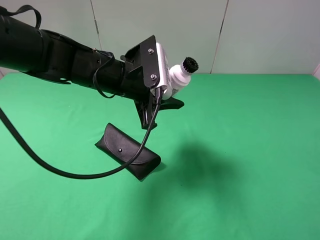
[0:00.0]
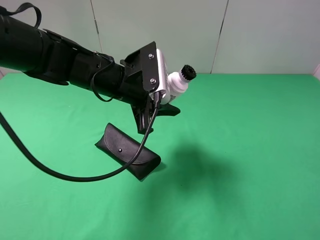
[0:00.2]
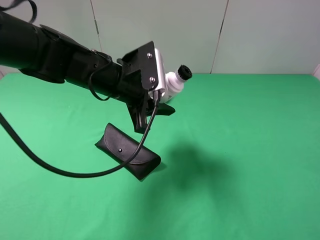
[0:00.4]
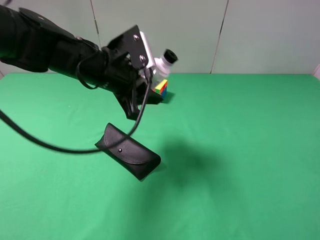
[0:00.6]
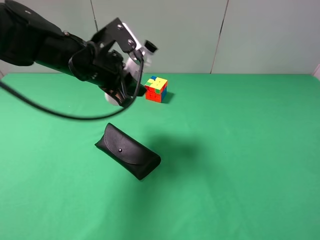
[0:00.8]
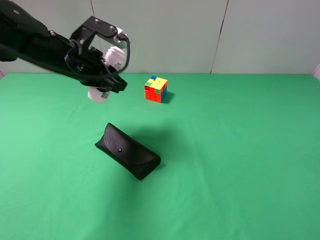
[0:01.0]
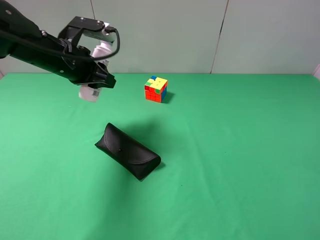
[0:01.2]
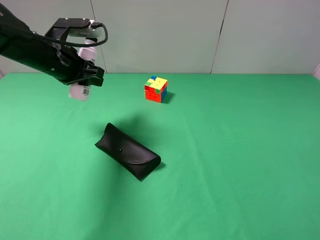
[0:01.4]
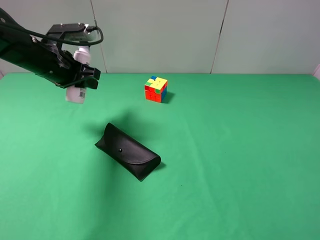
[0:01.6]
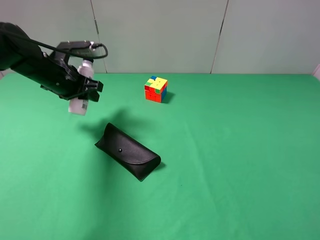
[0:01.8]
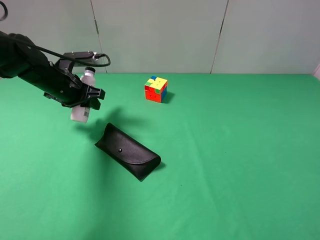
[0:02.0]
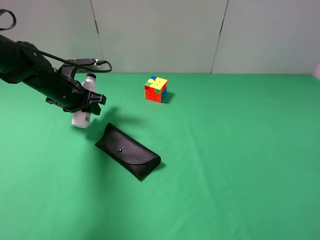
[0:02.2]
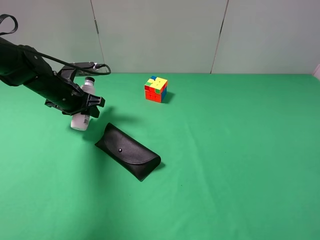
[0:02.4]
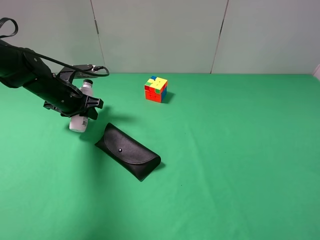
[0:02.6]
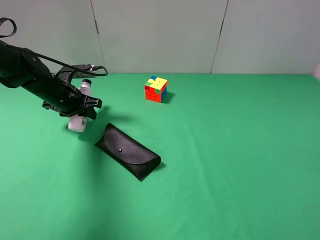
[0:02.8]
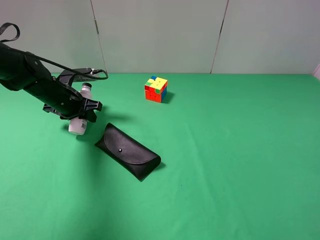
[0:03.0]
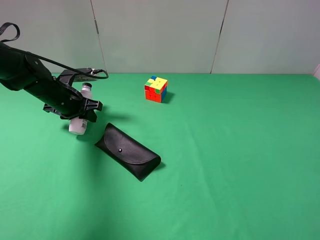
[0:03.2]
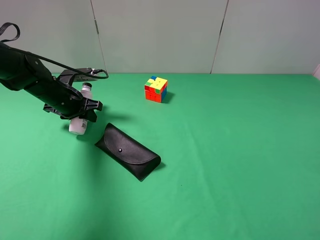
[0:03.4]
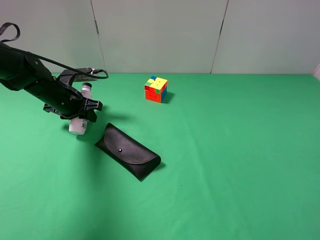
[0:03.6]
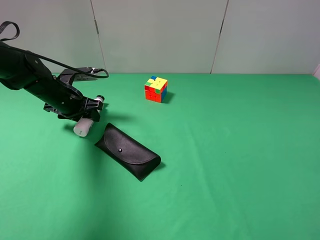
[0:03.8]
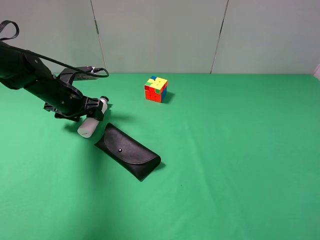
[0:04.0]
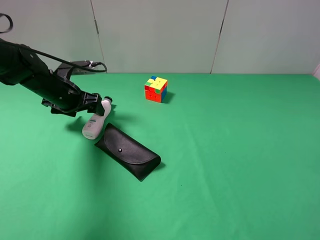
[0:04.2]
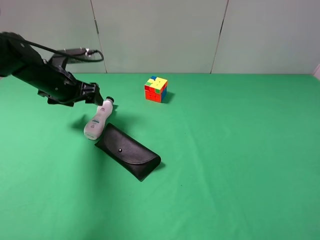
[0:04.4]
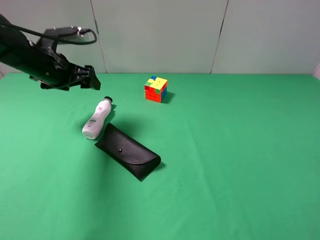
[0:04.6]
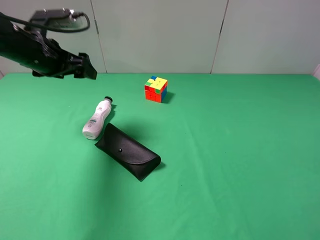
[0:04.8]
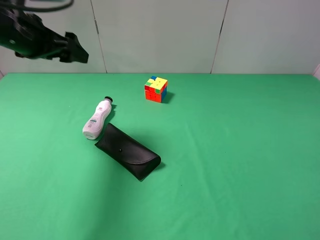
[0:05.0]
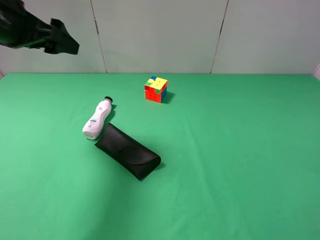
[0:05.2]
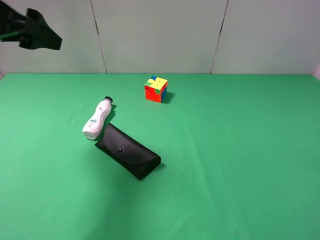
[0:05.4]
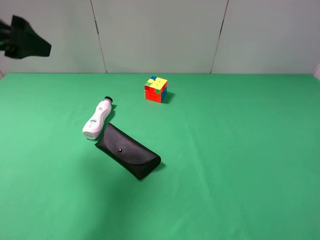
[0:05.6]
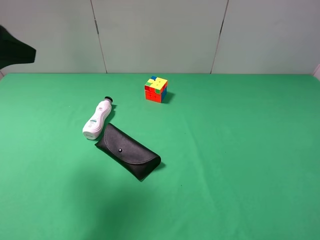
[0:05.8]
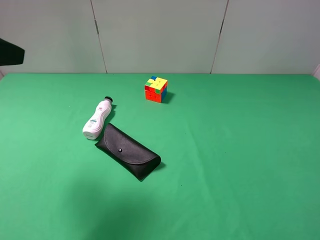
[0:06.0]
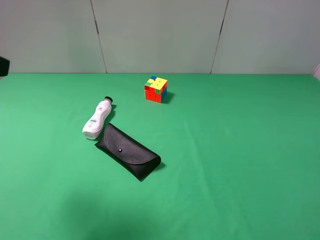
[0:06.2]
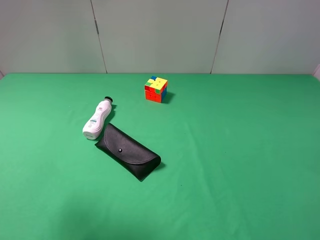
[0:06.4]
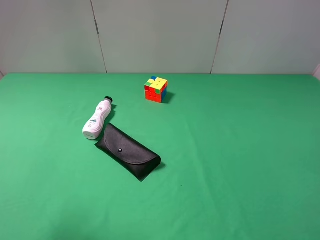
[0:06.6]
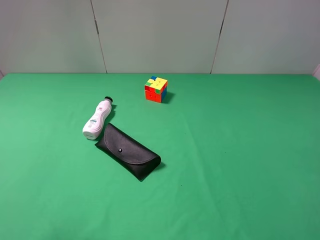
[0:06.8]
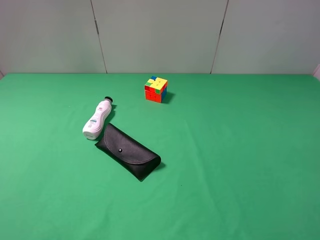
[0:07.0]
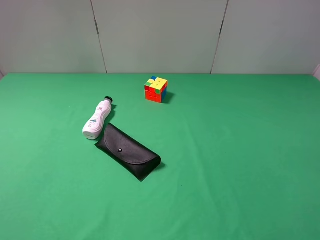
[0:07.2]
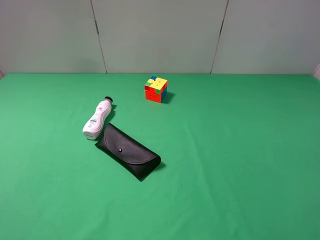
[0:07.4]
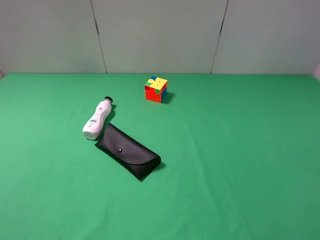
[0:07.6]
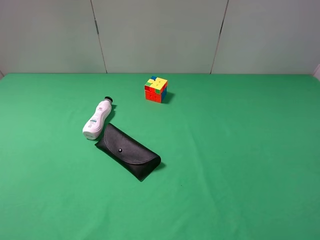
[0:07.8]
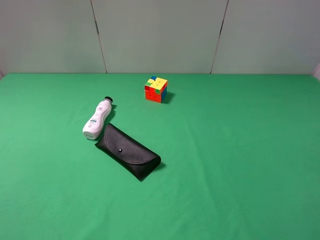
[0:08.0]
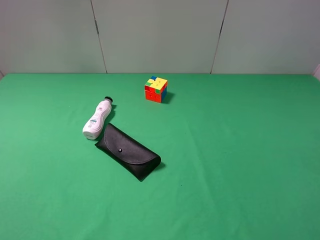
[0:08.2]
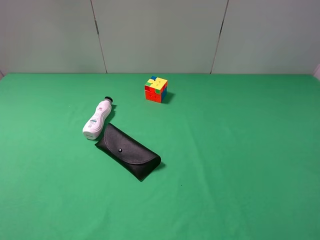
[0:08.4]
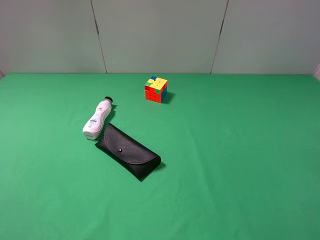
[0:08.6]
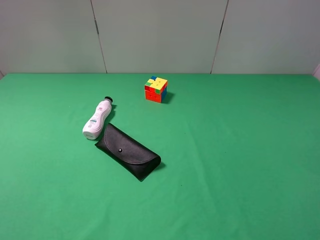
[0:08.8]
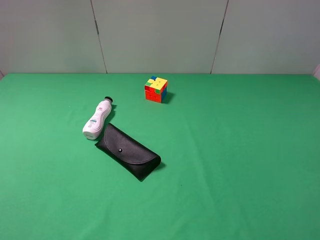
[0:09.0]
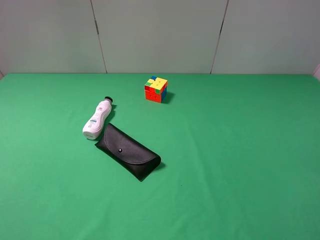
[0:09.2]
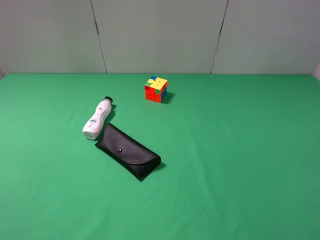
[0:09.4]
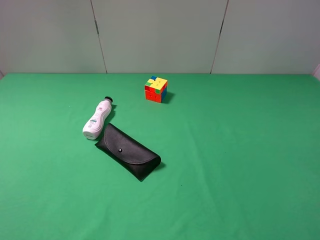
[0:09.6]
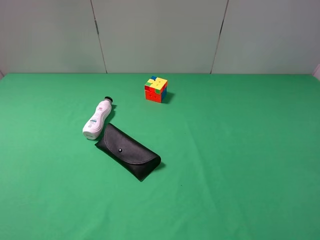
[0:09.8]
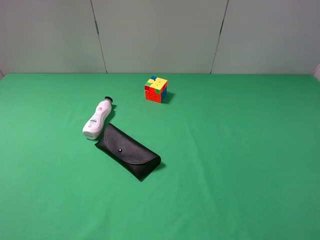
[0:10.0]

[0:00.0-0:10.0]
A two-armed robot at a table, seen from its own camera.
Task of the whole recording: use the right gripper to pick up the item and transfer it from the right gripper to the left gripper.
Step, 0:00.0 to 0:04.0: The left gripper places shampoo on the left side of the table.
0:00.0 to 0:01.4: The left gripper is displaced to the left and forward by about 15 cm.
0:01.4 to 0:02.8: The left gripper moves downward, roughly 10 cm.
0:02.8 to 0:04.2: The left gripper opens its fingers.
0:04.2 to 0:05.8: The left gripper moves upward and backward, approximately 25 cm.
0:05.8 to 0:07.2: The left gripper is displaced backward by some 20 cm.

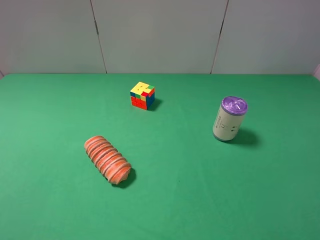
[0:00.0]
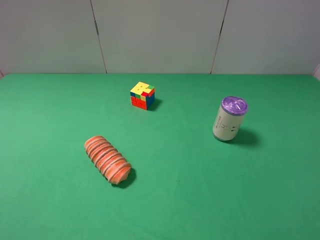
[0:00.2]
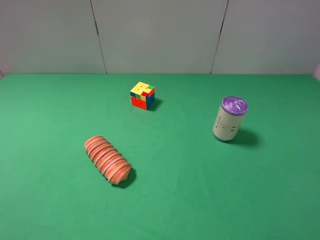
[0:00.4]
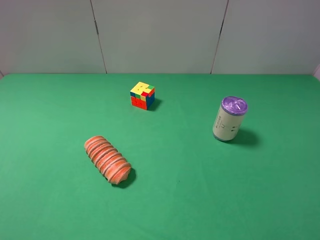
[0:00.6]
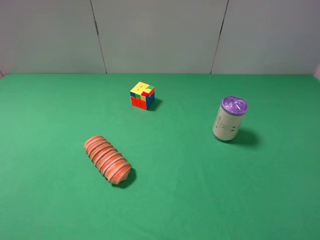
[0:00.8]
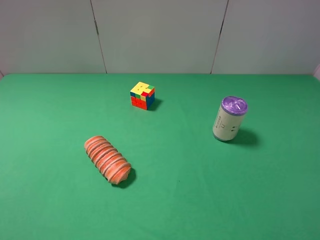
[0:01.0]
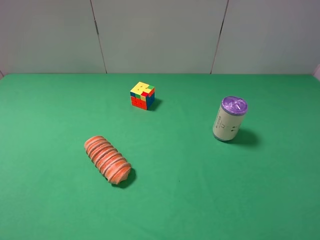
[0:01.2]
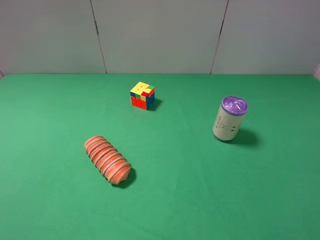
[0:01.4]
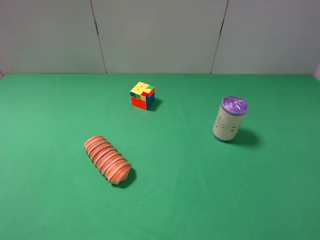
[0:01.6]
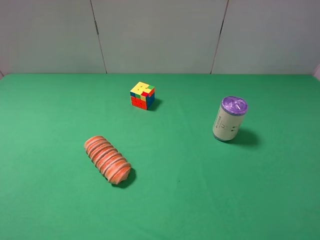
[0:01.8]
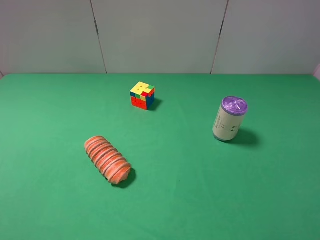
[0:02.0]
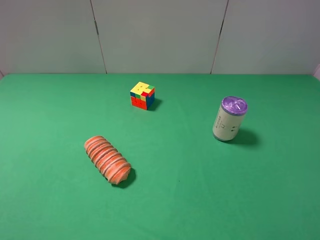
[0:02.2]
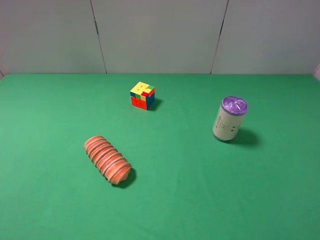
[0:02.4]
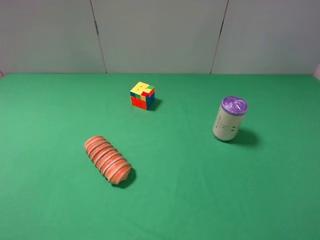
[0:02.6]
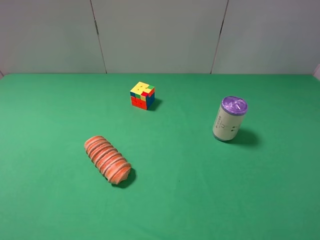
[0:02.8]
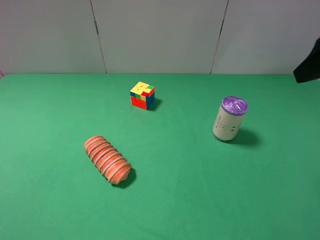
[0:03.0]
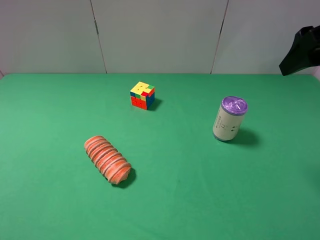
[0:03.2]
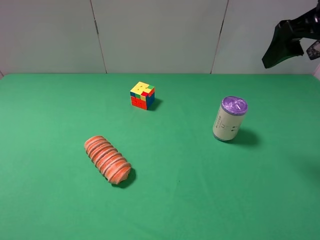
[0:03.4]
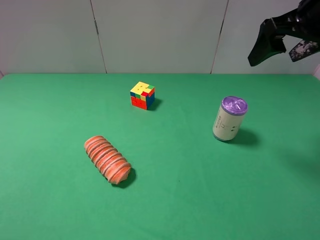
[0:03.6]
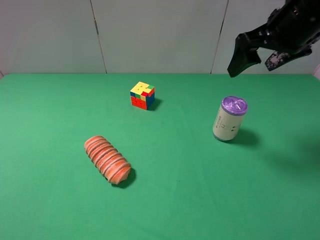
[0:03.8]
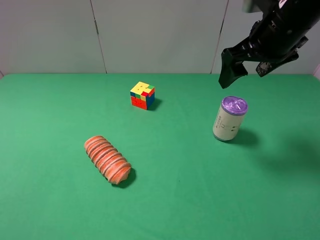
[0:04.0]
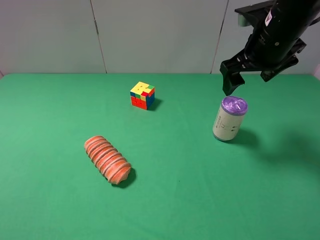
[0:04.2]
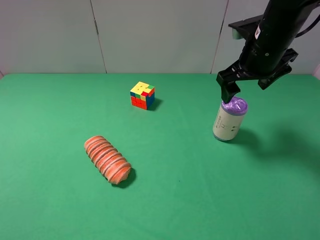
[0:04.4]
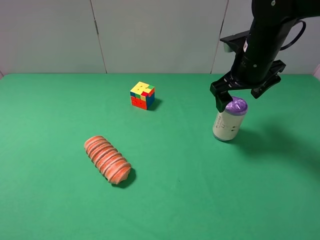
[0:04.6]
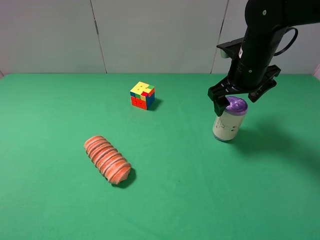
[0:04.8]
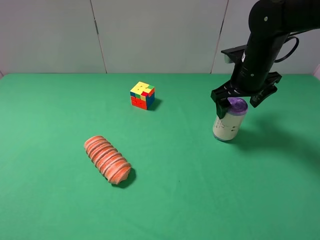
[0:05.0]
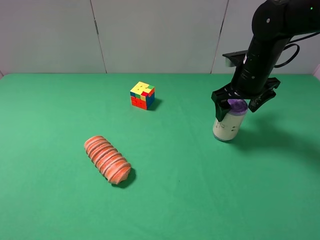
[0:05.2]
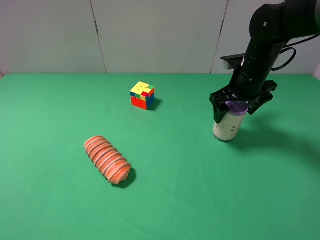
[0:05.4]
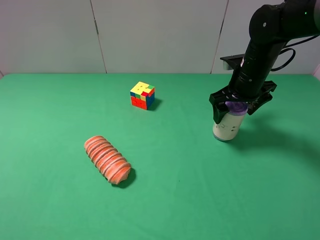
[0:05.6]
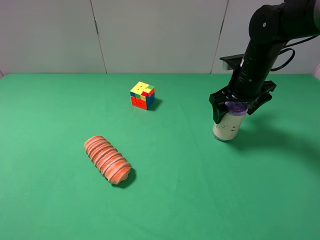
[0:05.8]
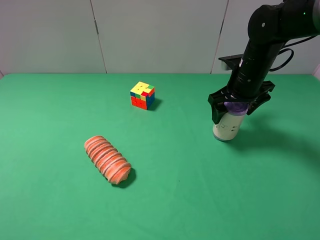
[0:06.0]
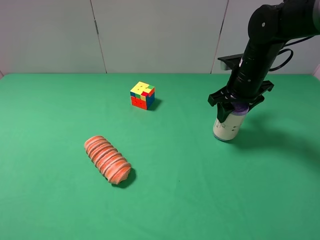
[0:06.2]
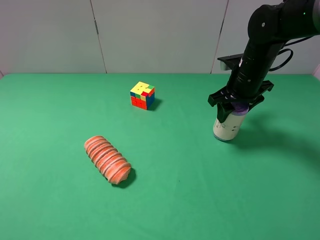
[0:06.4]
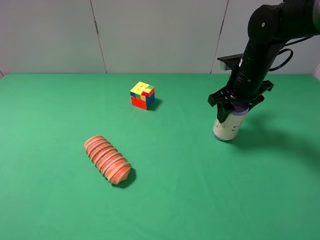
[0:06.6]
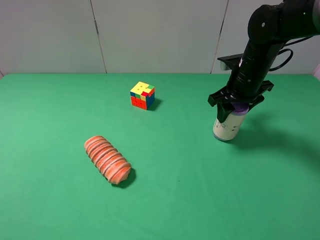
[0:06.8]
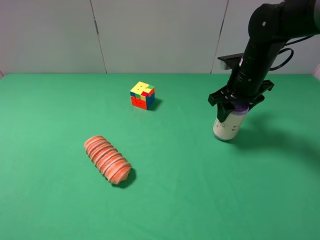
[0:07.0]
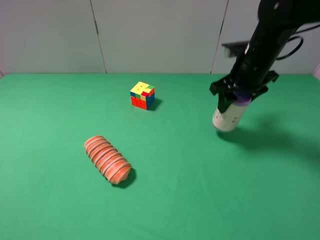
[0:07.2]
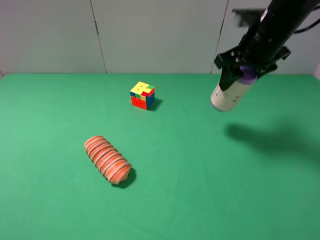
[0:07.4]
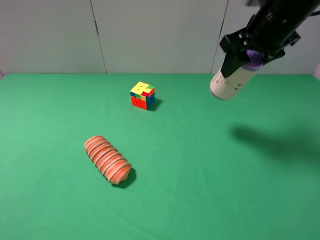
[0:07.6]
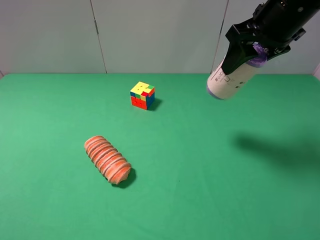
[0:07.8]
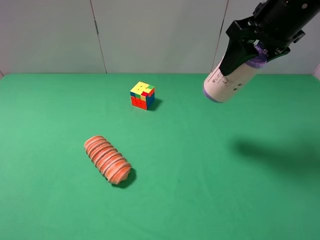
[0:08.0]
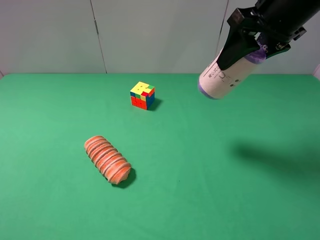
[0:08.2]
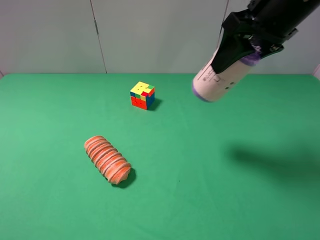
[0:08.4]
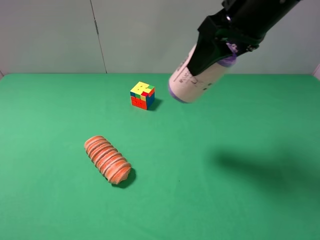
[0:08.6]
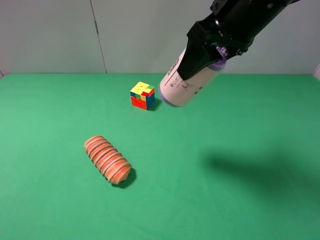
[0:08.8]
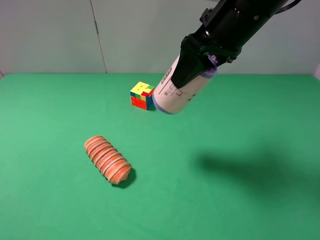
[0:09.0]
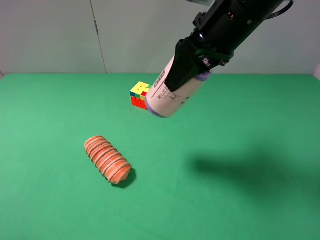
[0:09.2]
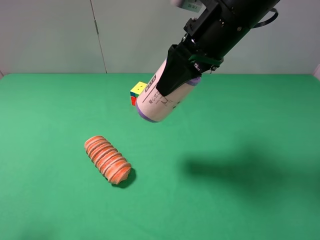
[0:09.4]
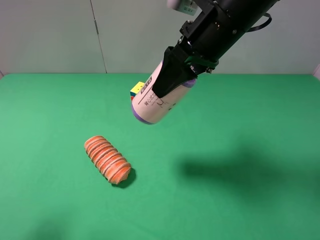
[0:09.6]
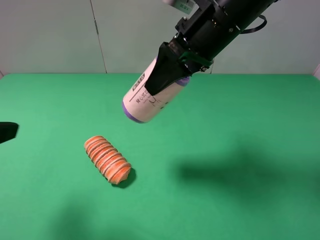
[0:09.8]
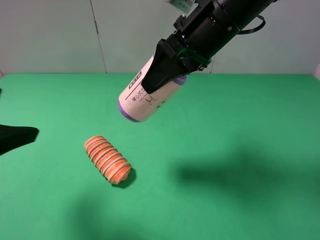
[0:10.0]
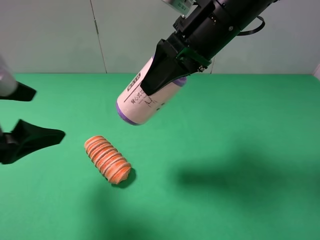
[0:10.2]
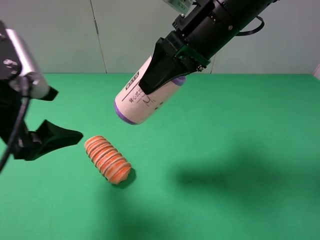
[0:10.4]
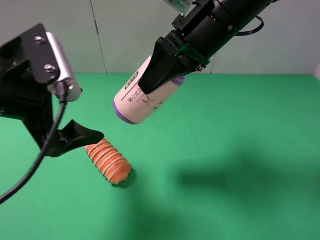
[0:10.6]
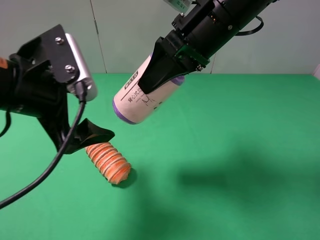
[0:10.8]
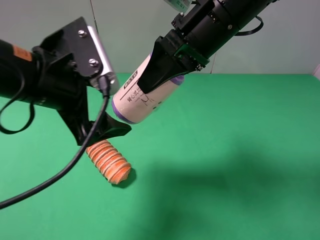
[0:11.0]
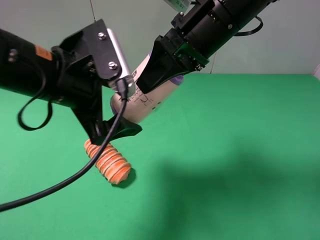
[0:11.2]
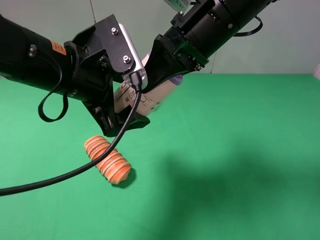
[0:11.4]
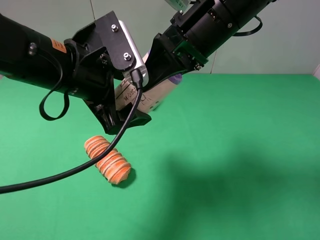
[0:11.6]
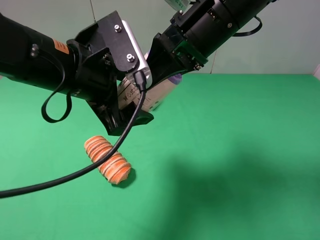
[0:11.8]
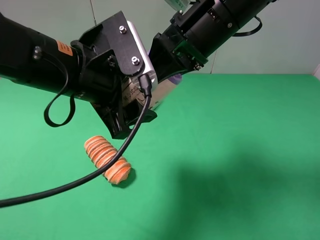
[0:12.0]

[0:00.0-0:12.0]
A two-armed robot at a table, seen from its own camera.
Task of the whole recording: use the right gripper to pick up the item and transfer it from the right gripper to the left gripper.
Step, 0:00.0 to 0:06.2: Use the right gripper to grab the purple garbage bag on the right side of the table.
0:00.0 to 0:01.6: Both grippers stay put.
0:01.6 to 0:03.0: The right gripper is displaced forward by some 20 cm.
0:03.0 to 0:04.4: The right gripper shifts some 20 cm forward, downward and to the left.
0:04.4 to 0:06.0: The right gripper shifts roughly 5 cm downward.
0:06.0 to 0:07.6: The right gripper is displaced upward by roughly 15 cm, and closes its fingers.
0:07.6 to 0:09.0: The right gripper heads to the left, covering some 10 cm.
0:09.0 to 0:10.4: The left gripper heads forward and to the right, covering some 20 cm.
0:10.4 to 0:12.0: The left gripper goes roughly 10 cm to the right, and closes up.
